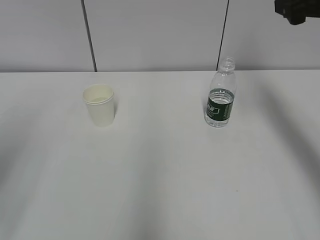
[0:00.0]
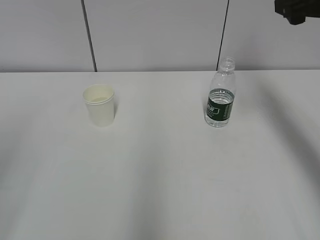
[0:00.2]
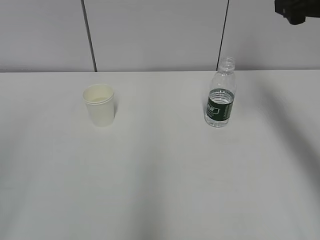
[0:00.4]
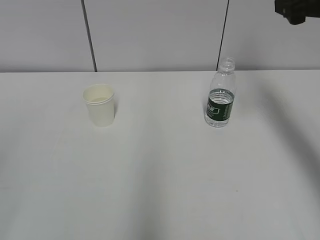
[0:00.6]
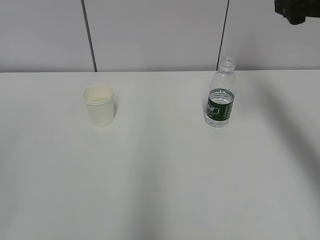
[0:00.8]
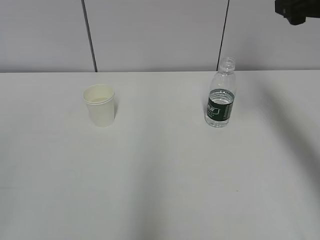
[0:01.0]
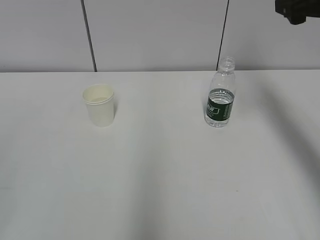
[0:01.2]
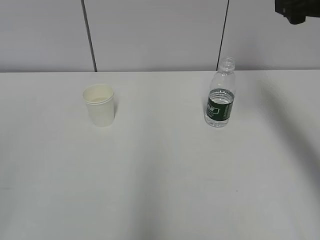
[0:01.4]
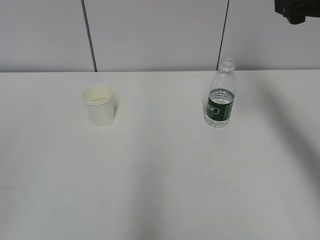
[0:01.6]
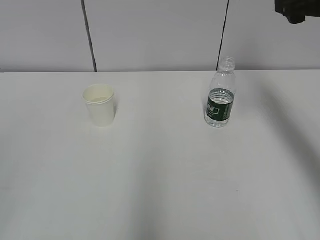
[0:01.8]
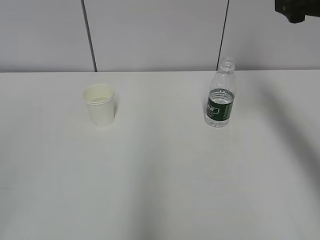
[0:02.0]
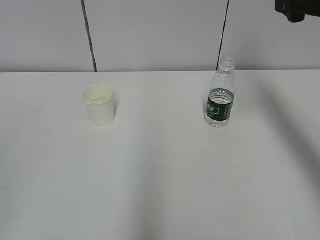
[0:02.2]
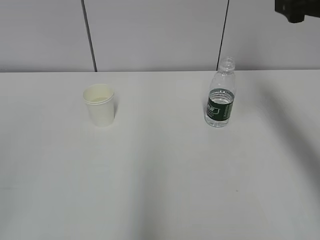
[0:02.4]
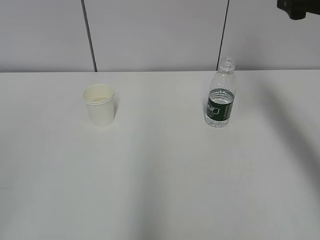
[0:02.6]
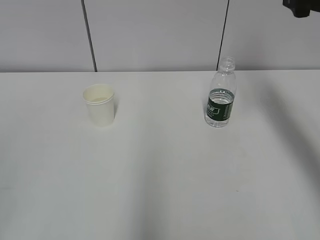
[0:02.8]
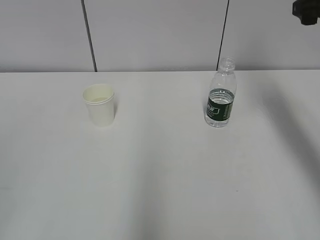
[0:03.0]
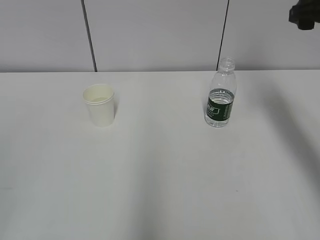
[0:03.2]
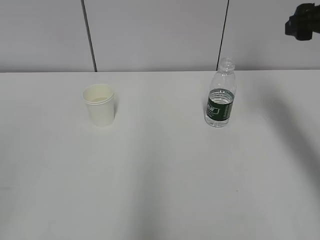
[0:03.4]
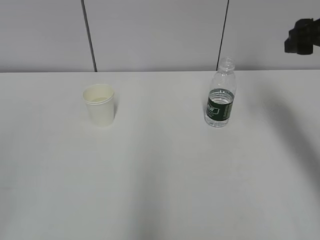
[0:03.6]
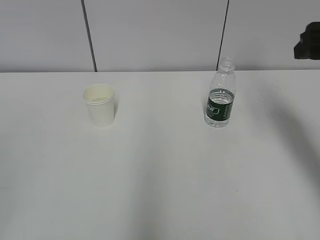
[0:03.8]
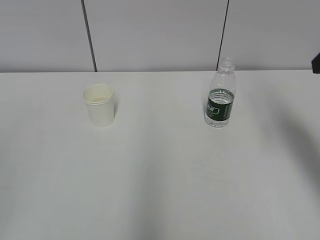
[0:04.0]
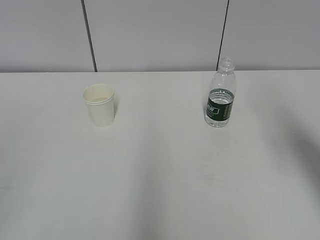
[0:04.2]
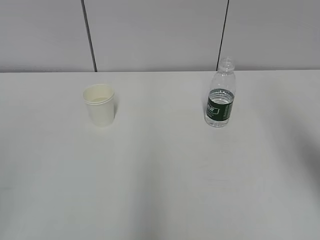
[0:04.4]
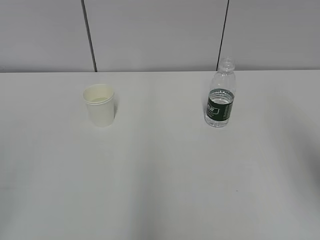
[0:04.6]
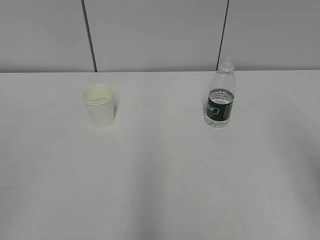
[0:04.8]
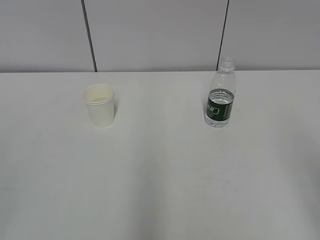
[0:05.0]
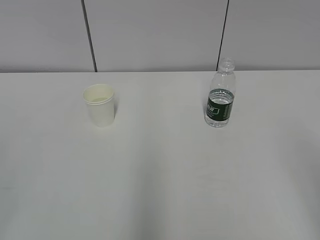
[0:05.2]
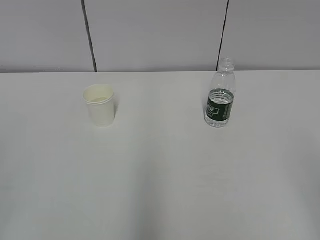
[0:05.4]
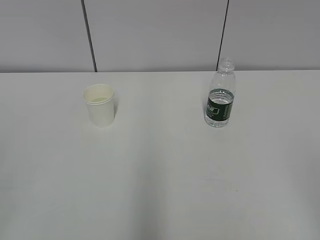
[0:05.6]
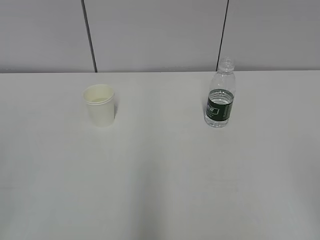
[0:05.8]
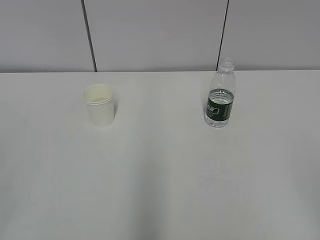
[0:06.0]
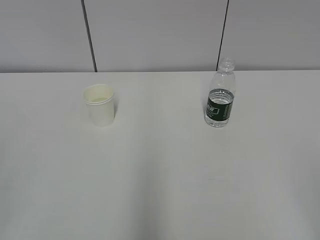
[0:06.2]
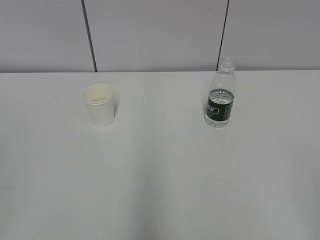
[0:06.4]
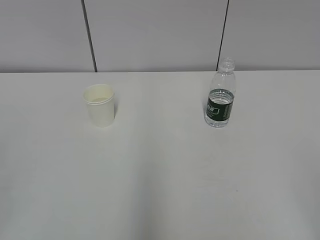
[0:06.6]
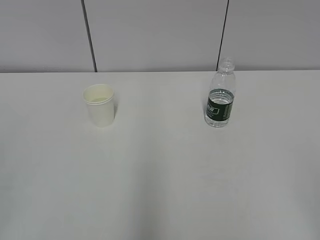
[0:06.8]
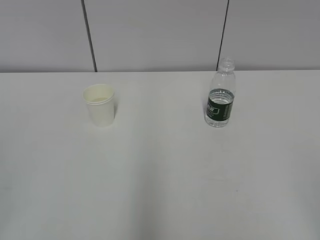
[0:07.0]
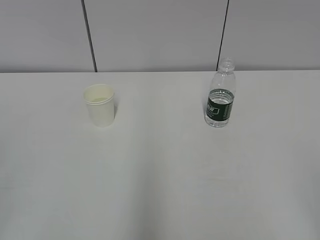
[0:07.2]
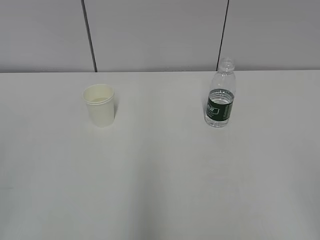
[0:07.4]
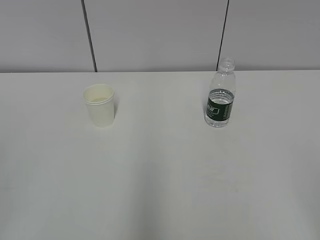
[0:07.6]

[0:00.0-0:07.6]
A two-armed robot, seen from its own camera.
0:03.0 to 0:04.6: The right gripper heads backward, covering approximately 20 cm.

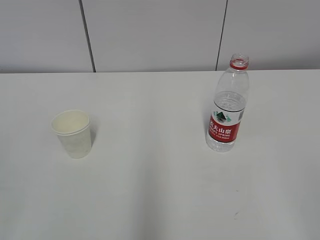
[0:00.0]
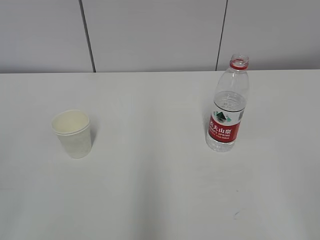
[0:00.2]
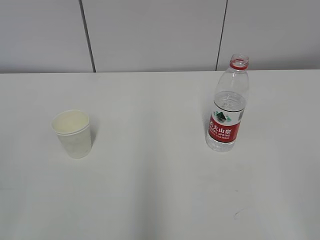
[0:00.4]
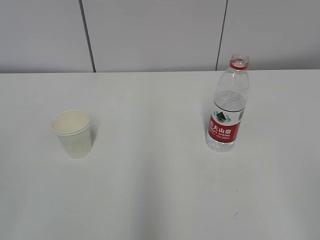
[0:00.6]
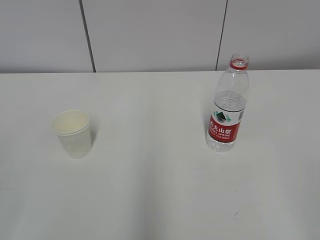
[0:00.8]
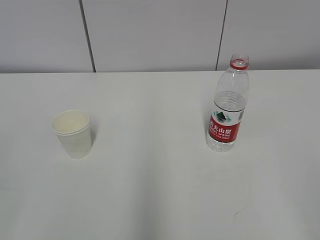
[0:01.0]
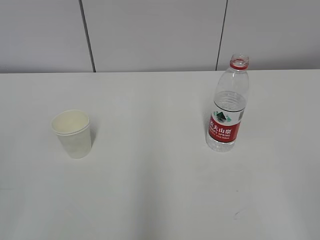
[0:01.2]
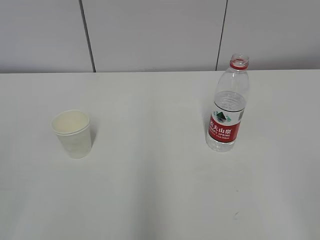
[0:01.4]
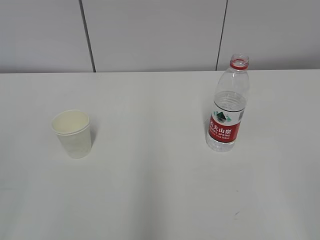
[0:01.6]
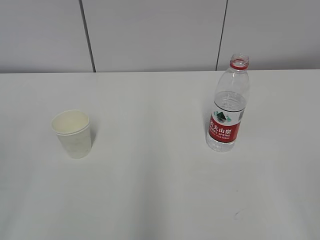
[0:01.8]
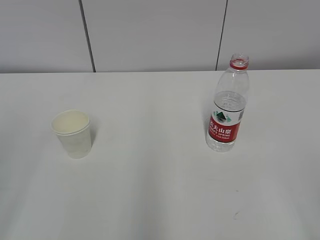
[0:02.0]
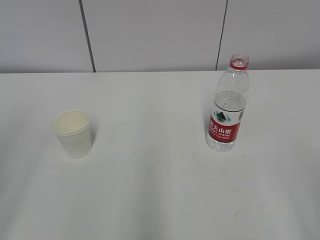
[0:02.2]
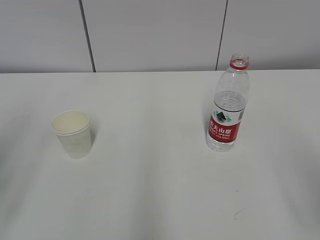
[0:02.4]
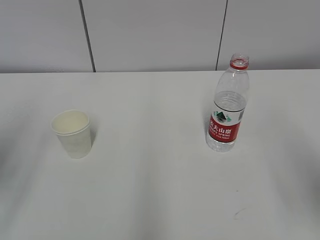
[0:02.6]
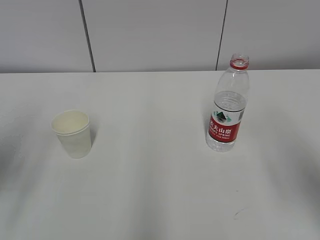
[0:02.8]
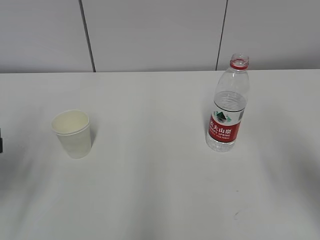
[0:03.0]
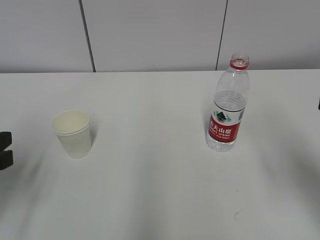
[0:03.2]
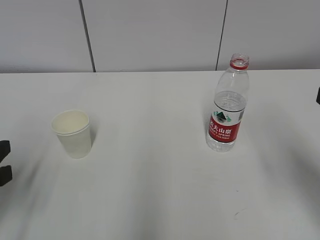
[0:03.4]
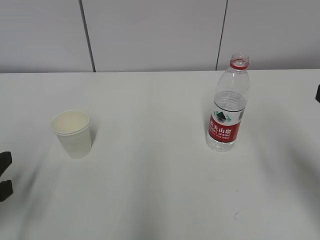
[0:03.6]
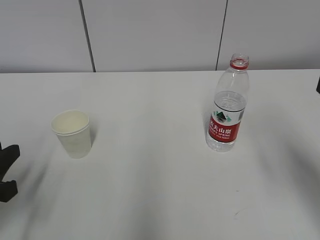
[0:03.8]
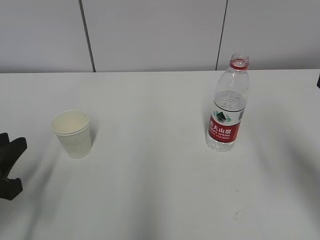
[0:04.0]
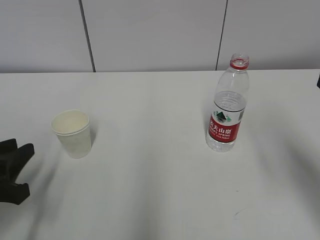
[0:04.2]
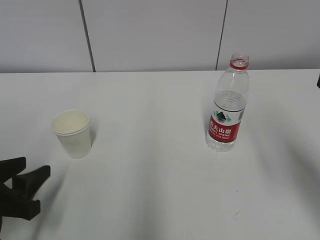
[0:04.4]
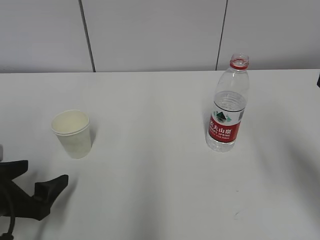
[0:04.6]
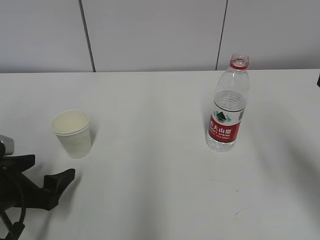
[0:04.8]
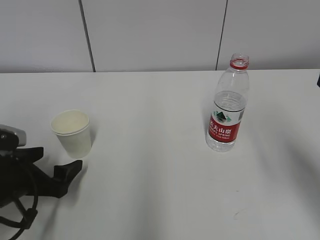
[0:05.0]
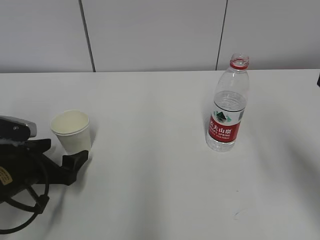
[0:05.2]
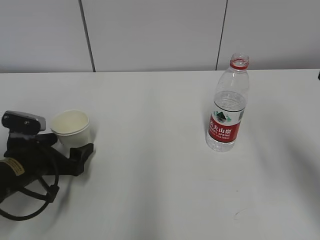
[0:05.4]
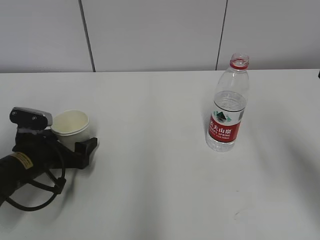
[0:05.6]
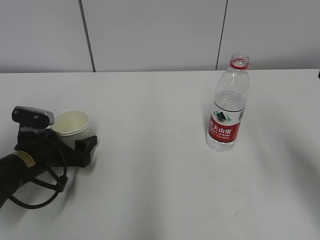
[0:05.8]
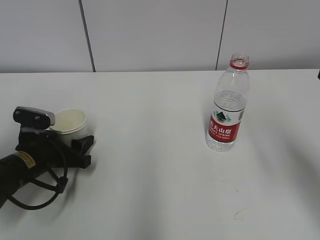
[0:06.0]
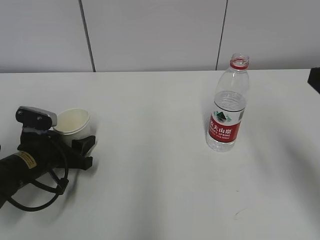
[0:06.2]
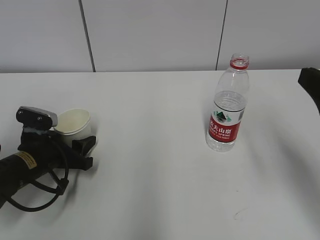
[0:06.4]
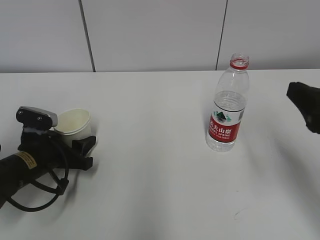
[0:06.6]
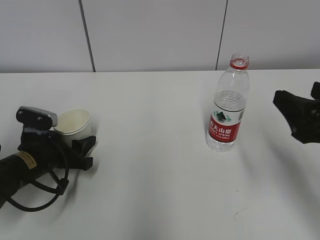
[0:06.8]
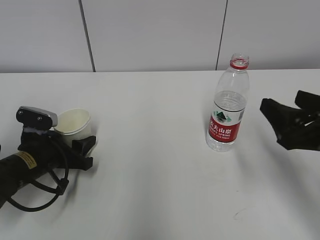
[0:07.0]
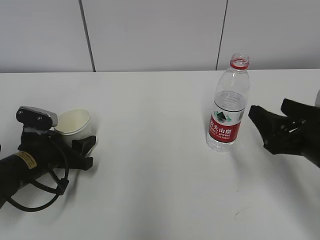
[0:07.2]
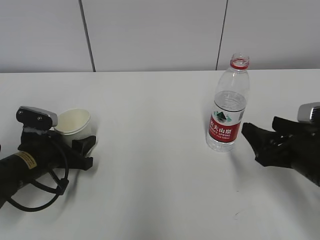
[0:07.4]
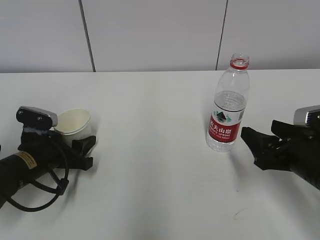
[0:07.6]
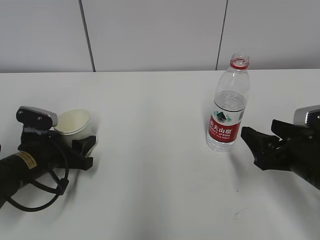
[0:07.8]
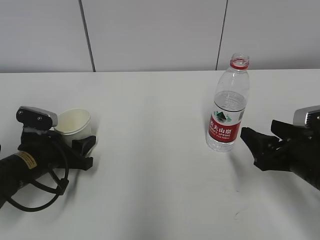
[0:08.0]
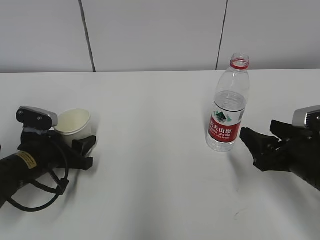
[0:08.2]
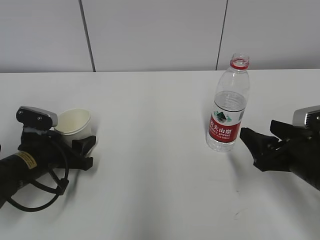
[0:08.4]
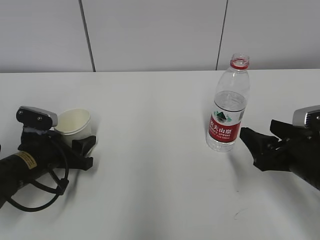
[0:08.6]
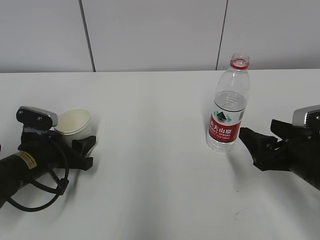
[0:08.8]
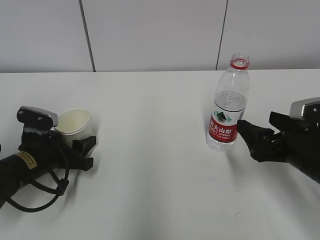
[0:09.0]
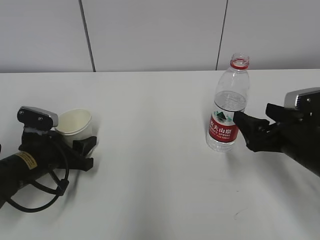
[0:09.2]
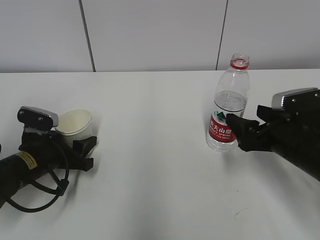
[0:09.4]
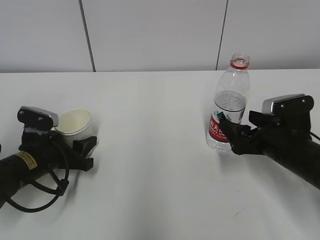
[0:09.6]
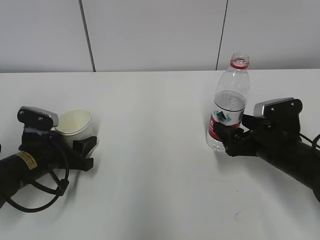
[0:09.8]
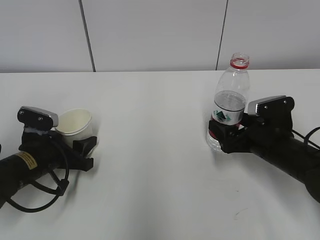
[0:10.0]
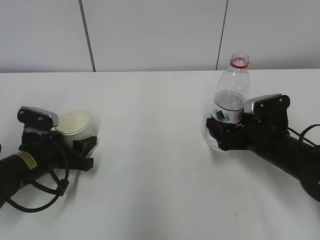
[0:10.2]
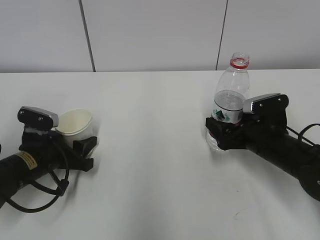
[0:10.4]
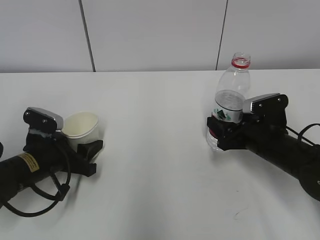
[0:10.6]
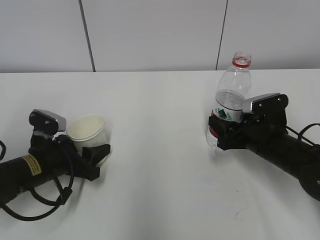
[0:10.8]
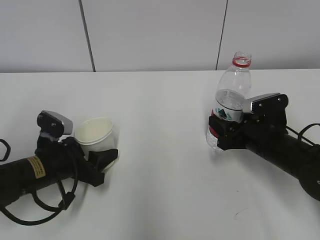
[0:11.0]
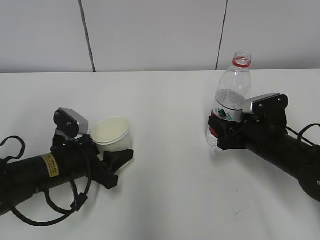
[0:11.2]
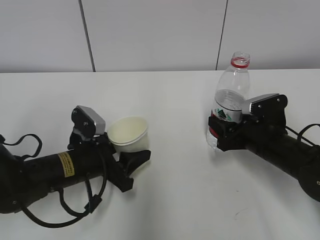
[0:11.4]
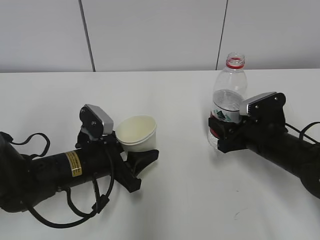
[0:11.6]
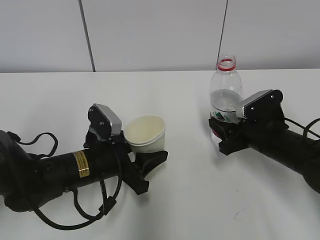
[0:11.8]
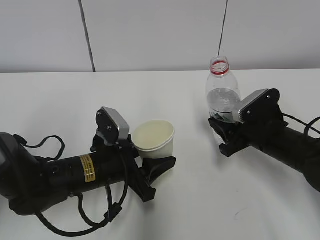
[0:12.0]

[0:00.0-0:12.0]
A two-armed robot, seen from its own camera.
Step, 0:00.0 to 0:08.6: Grab the paper cup with the left hand.
Step, 0:08.8 to 0:09.6: Grab the water bottle with the right hand.
0:01.6 to 0:03.0: Both grippers move forward, roughly 20 cm.
0:03.0 to 0:04.4: The left gripper travels downward by about 10 cm, and opens.
0:04.4 to 0:06.0: The left gripper shifts approximately 15 cm forward and downward, and opens and closes again.
0:06.0 to 0:07.6: The right gripper shifts roughly 15 cm downward and forward.
0:07.6 to 0:09.0: Neither gripper changes place.
0:09.0 to 0:10.4: The right gripper moves forward and downward, approximately 10 cm.
0:10.4 to 0:12.0: The right gripper closes up, while the left gripper is displaced to the right by some 10 cm.

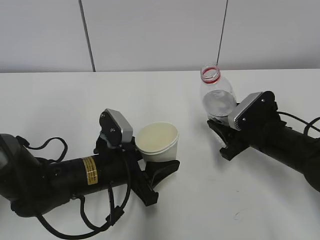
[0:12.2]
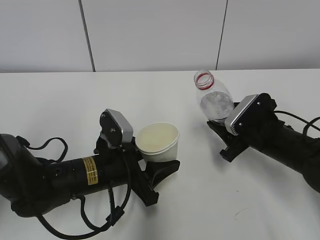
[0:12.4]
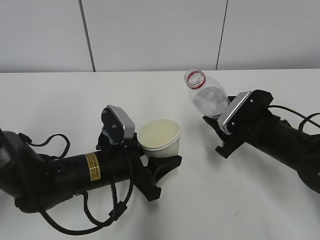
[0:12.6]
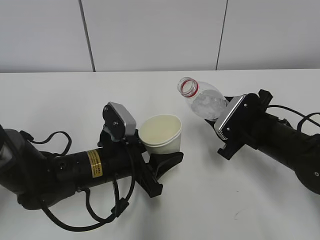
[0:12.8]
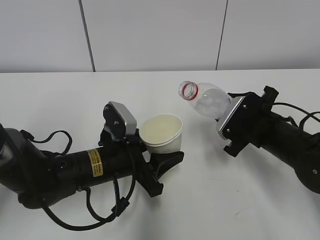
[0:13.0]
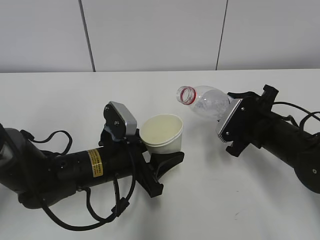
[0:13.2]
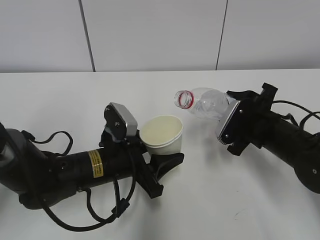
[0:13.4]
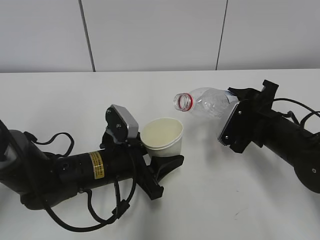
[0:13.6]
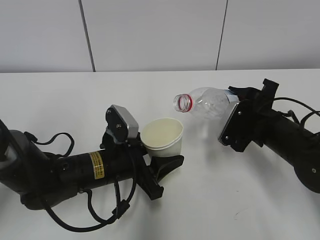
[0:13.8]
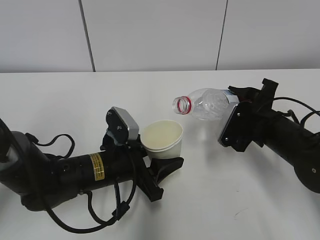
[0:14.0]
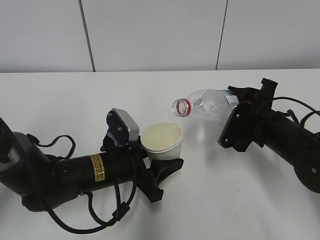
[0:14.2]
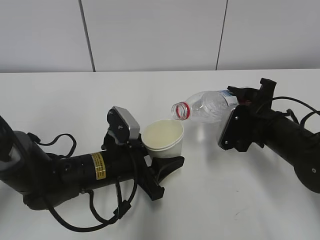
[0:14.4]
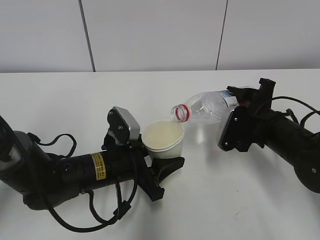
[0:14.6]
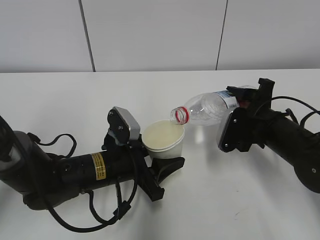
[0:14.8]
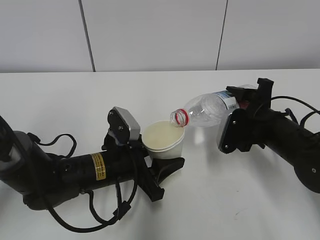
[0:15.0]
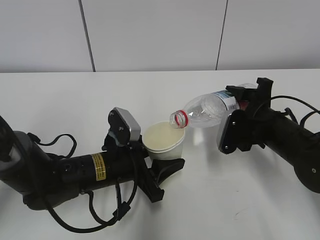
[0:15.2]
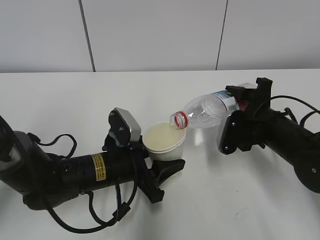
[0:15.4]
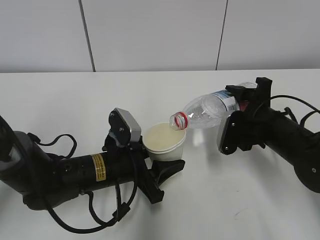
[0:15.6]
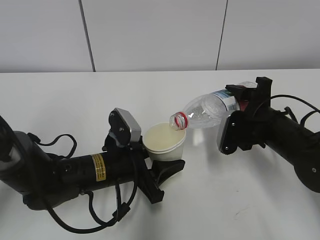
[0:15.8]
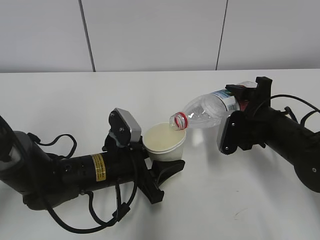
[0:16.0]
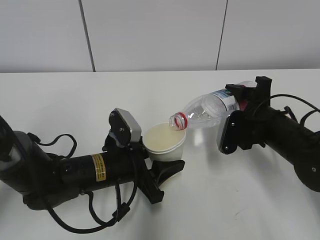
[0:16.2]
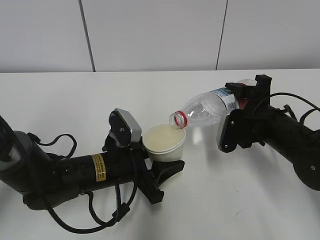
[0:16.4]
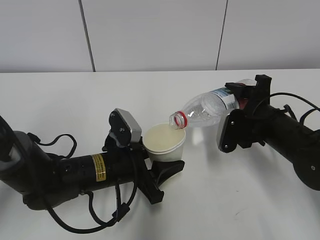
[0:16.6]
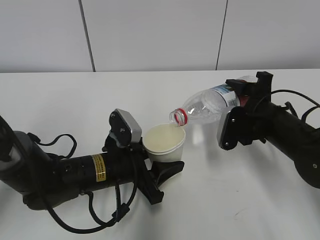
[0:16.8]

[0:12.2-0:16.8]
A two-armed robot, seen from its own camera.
Step, 0:12.2 to 0:14.2: Lift the paper cup with the left hand.
0:13.8 to 0:15.2: The grippers stay close to where they were, moving slightly.
0:15.2 to 0:16.8: The two grippers keep their place.
